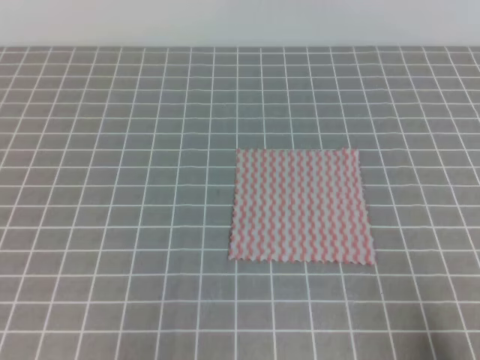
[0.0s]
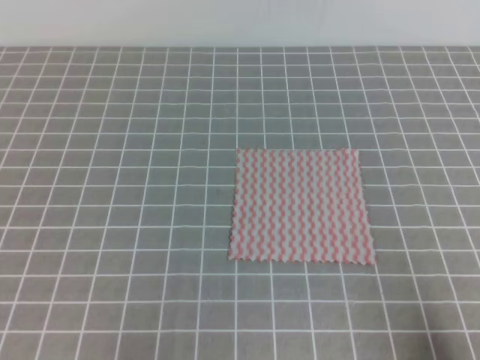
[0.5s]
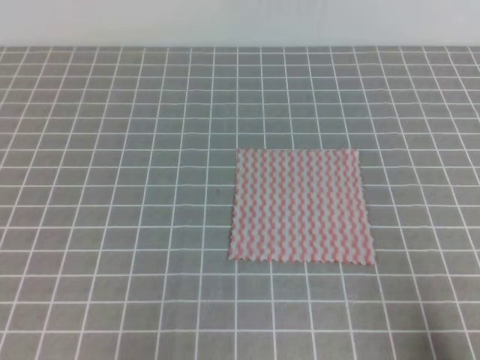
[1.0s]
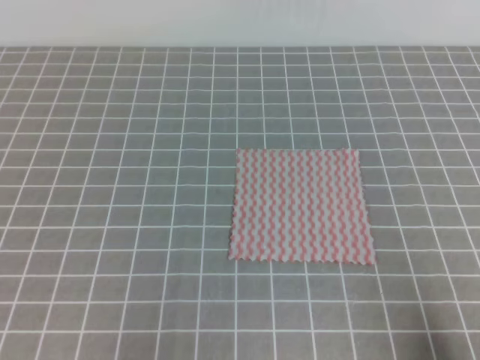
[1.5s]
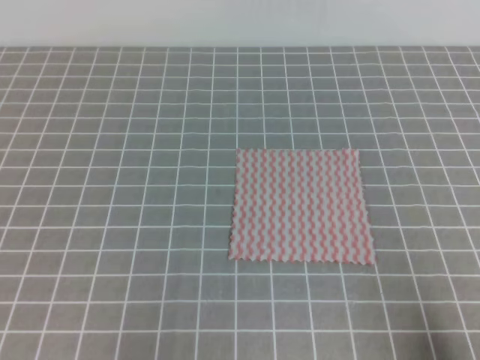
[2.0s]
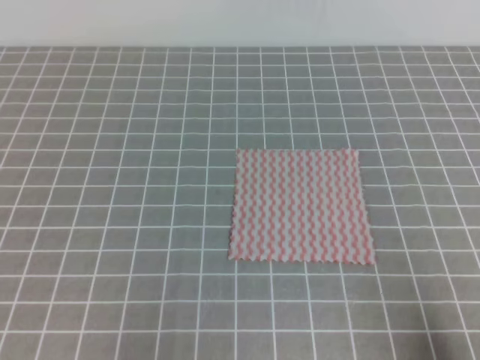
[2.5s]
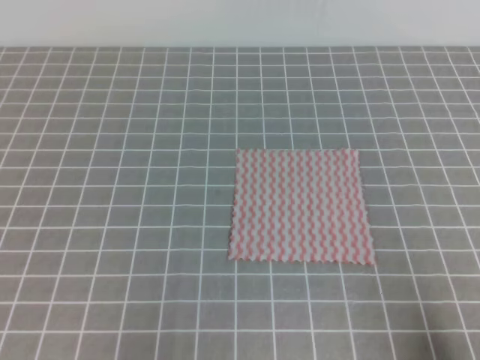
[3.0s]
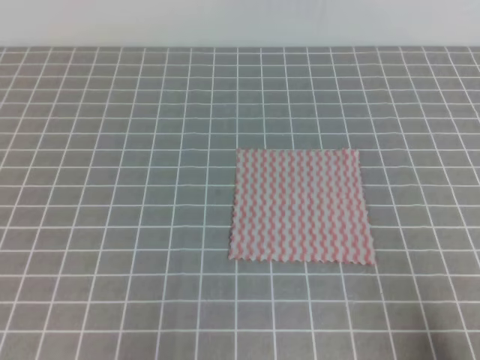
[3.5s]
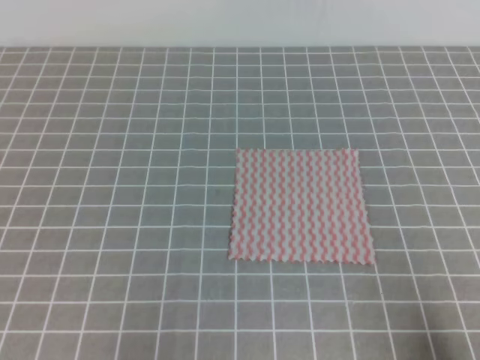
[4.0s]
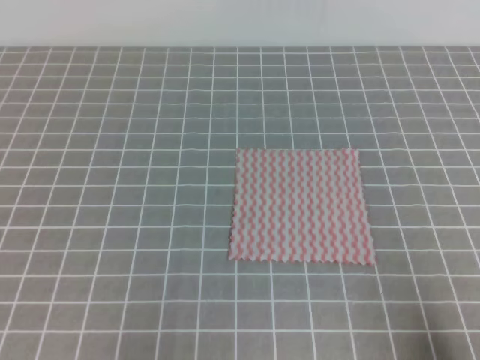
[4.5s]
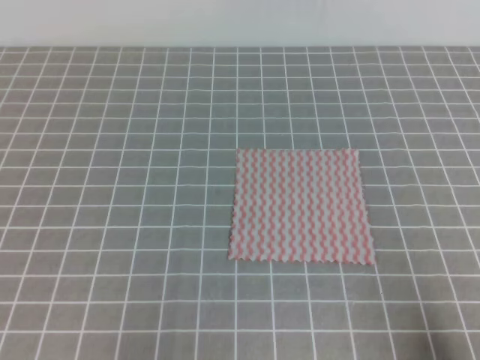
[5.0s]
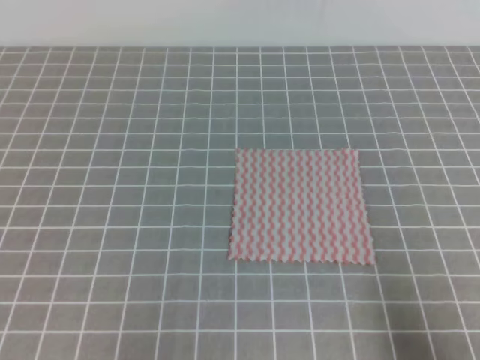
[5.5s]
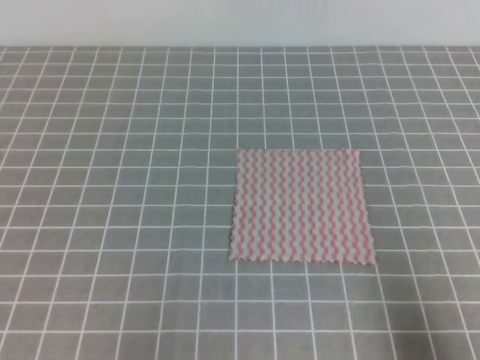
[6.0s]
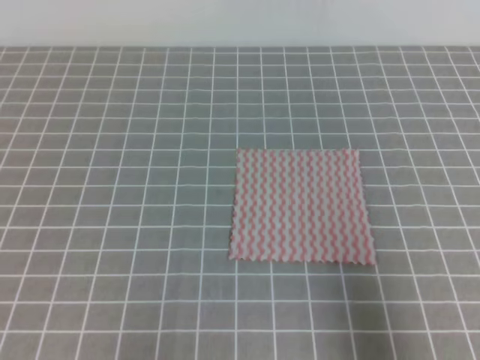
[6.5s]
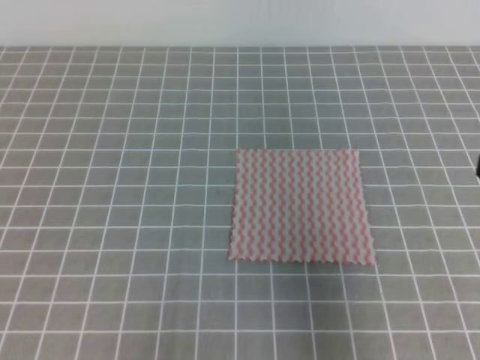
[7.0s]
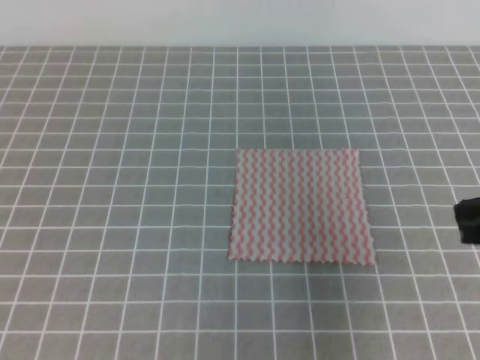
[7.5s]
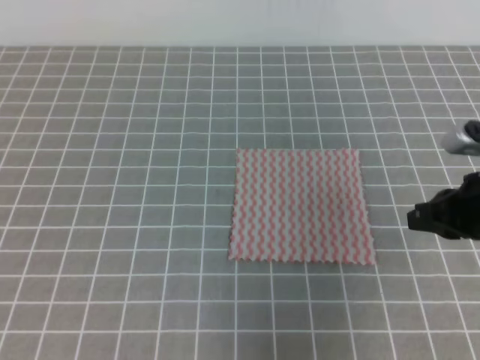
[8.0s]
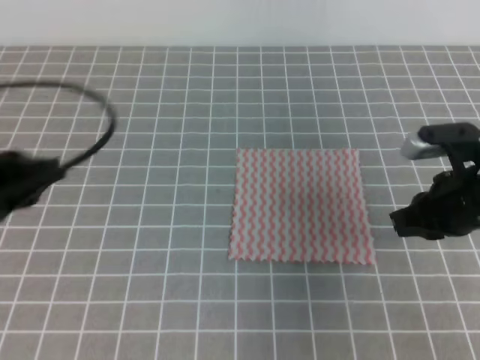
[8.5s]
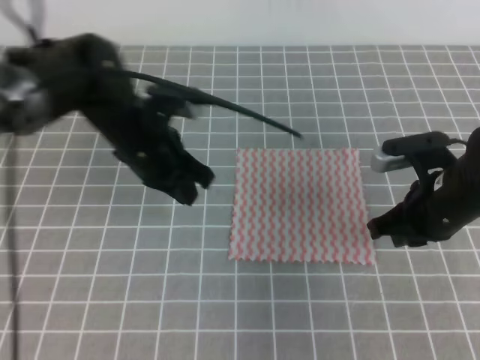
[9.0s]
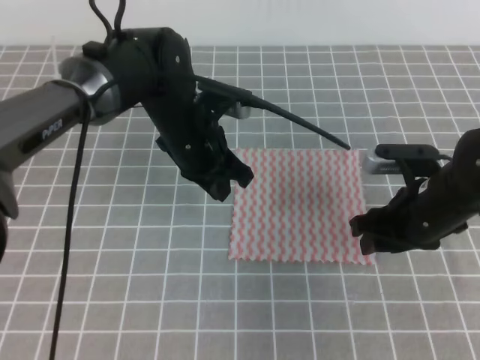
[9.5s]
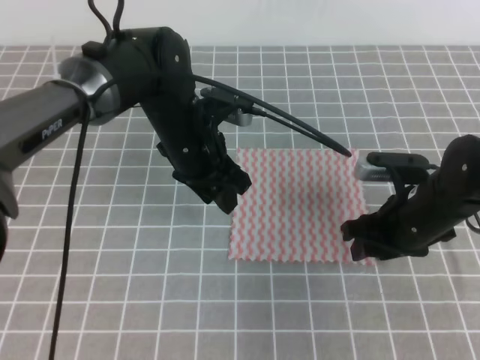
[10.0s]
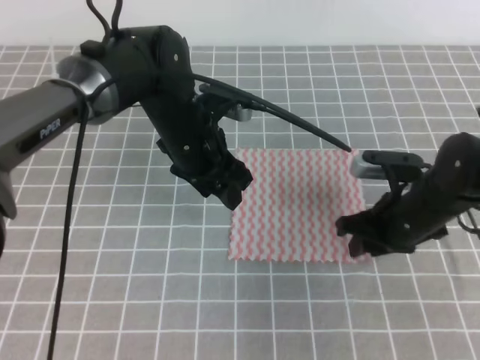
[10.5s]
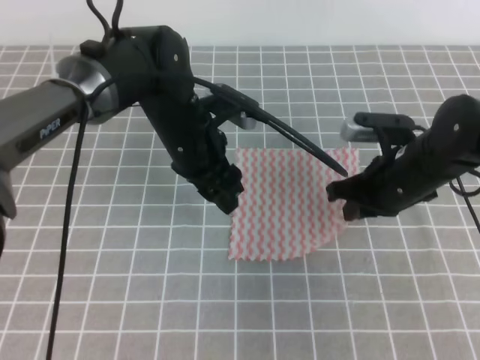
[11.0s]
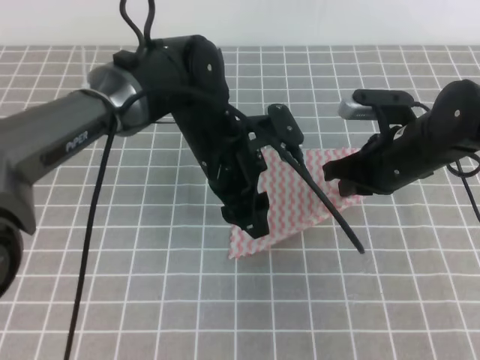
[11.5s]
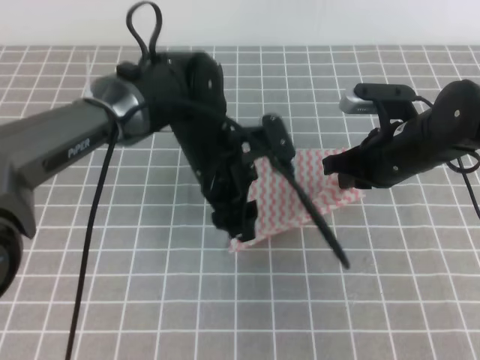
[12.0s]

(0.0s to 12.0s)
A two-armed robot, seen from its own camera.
0.0s - 4.0s: Both grippers stay put.
6.0s - 8.0s: The right gripper heads forward, covering about 20 cm. Meanwhile the left gripper travels upward by about 5 cm.
8.0s - 10.0s: The right gripper heads to the left and downward, covering roughly 10 cm, and opens. The left gripper heads forward and to the right, covering about 35 cm, and opens up.
10.0s - 12.0s: The right gripper ends up about 5 cm from where it was, and closes.

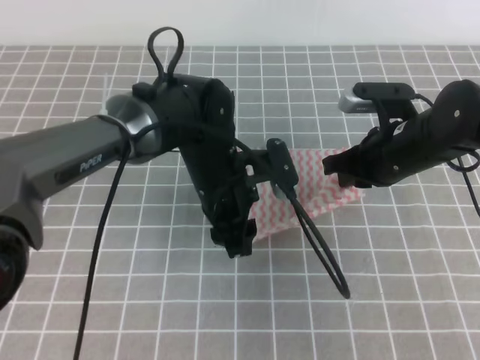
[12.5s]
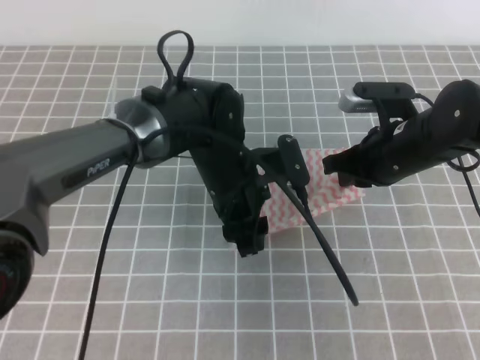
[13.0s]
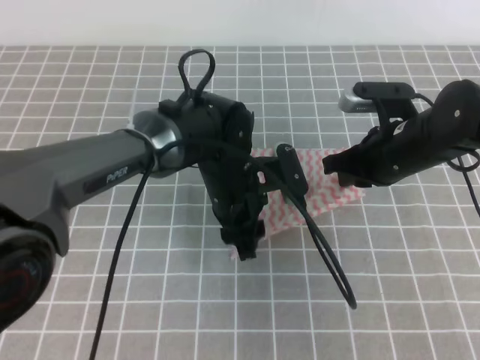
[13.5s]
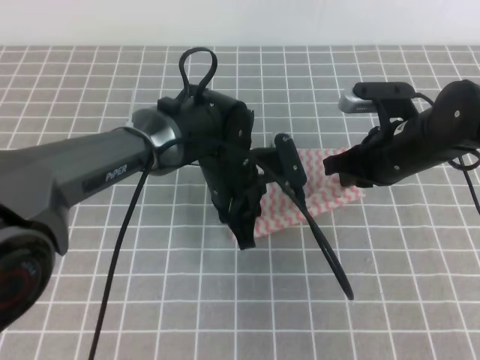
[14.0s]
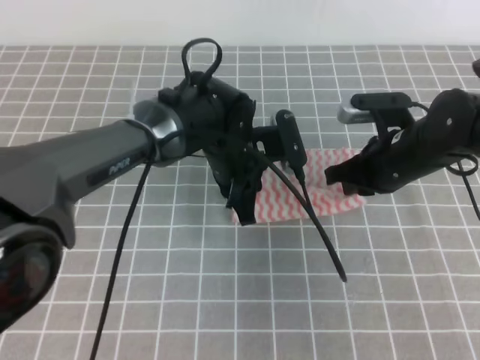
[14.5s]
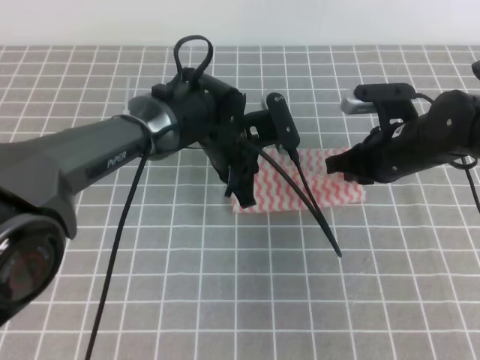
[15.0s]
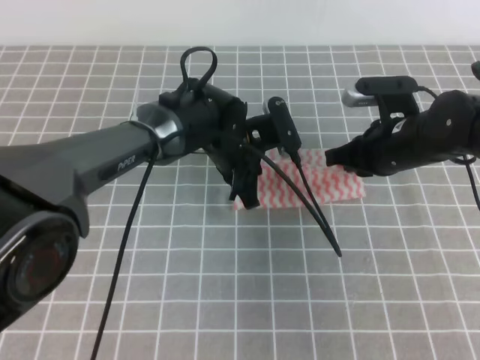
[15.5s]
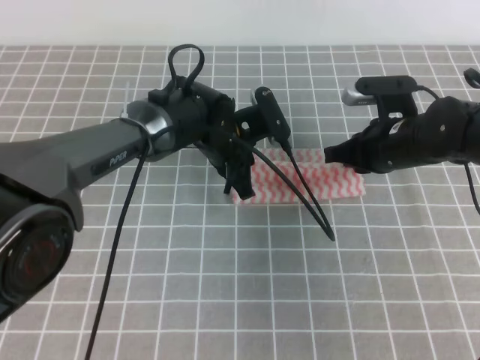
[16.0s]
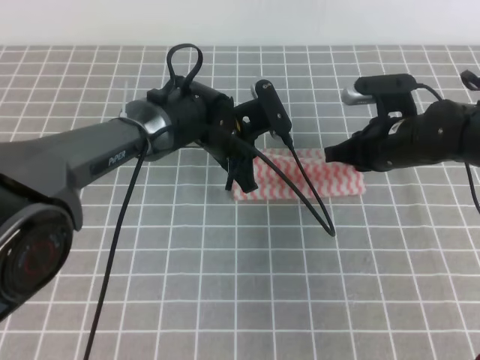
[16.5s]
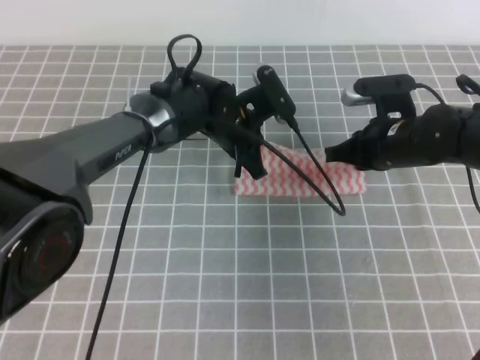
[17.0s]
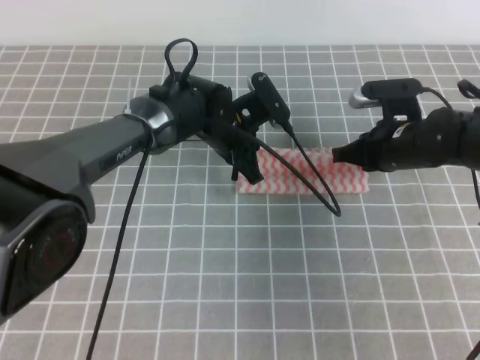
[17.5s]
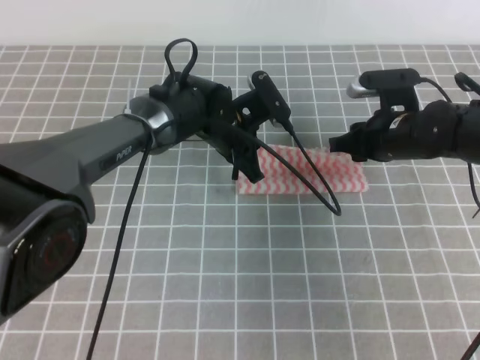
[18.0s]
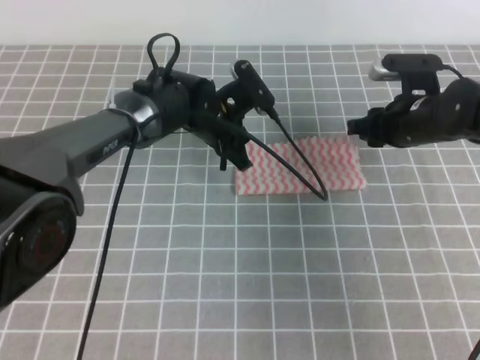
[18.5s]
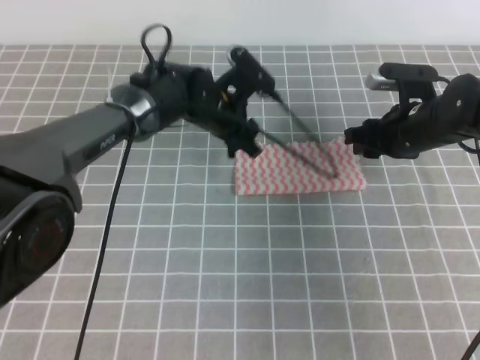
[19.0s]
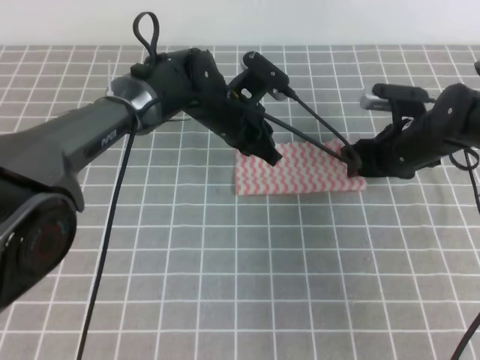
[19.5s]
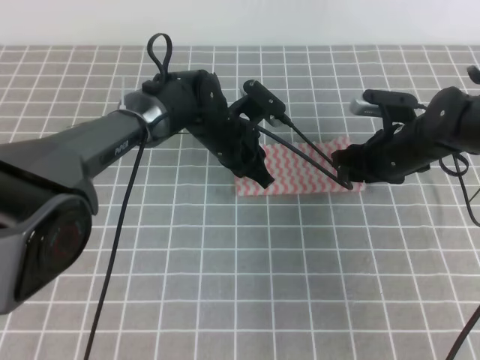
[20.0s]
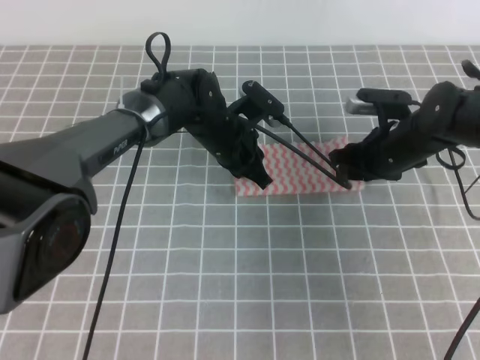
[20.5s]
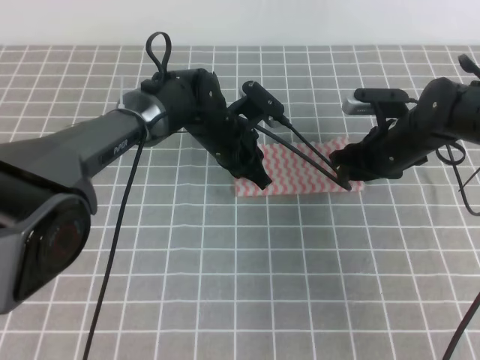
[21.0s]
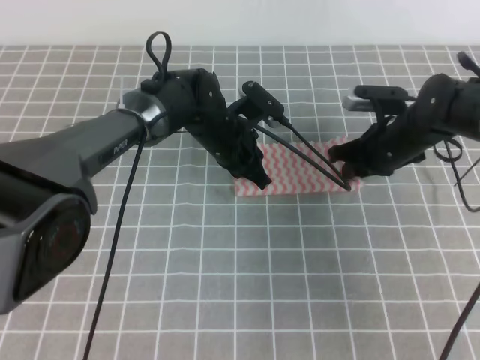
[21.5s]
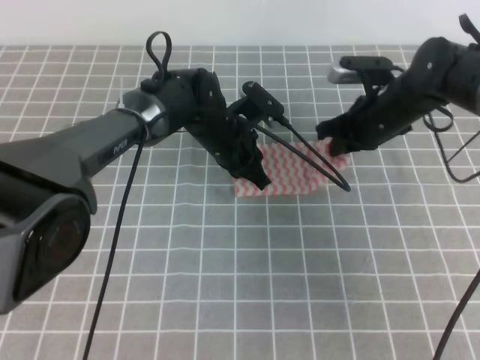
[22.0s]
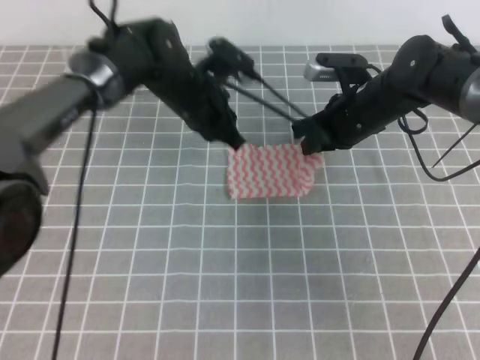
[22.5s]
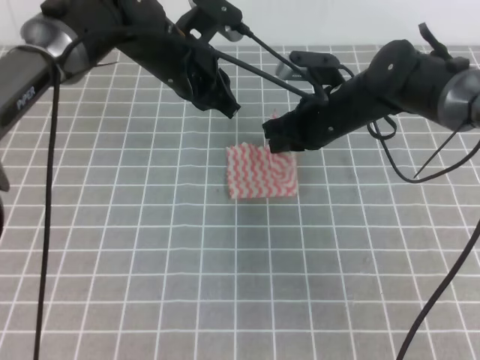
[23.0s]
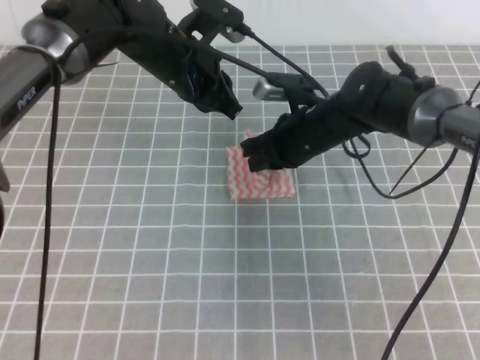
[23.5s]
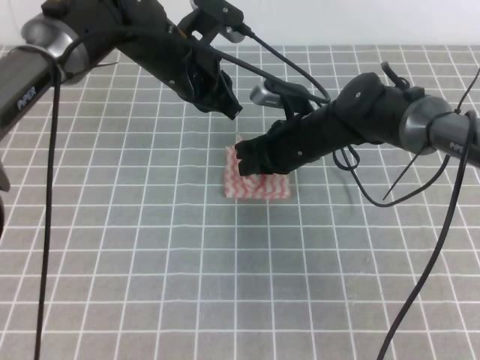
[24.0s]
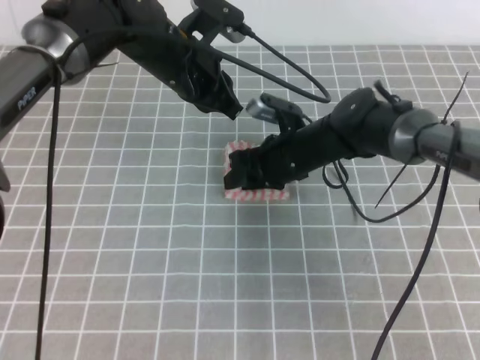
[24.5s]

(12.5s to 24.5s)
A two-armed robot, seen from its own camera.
12.5s - 14.5s: The left gripper closes its fingers.
14.5s - 16.5s: The left gripper shifts by approximately 5 cm.
16.5s - 18.5s: The left gripper opens; the right gripper opens its fingers.
18.5s - 20.5s: The left gripper closes.
20.5s - 22.5s: The right gripper moves to the left, about 5 cm, and closes up. Meanwhile the left gripper heads upward, covering approximately 5 cm.
22.5s - 24.5s: The left gripper travels upward by about 5 cm. Meanwhile the right gripper goes some 10 cm to the left, and opens its fingers.

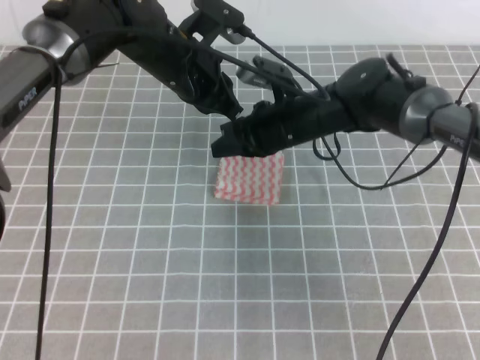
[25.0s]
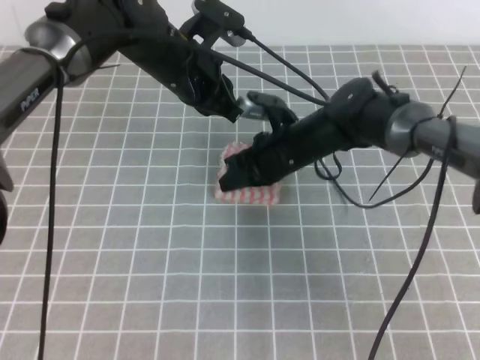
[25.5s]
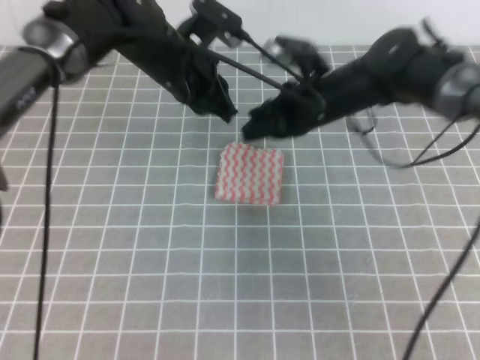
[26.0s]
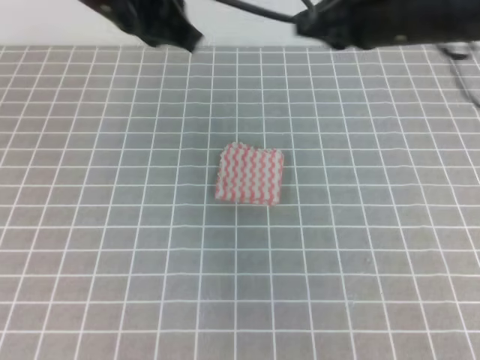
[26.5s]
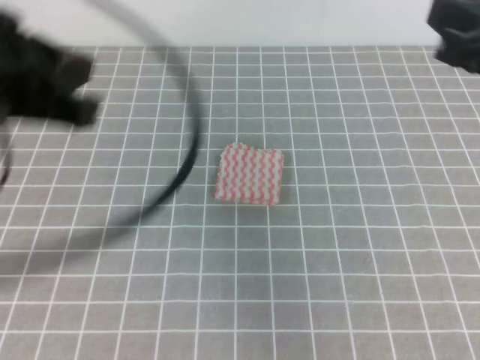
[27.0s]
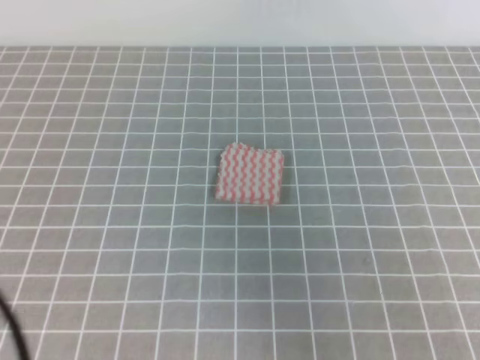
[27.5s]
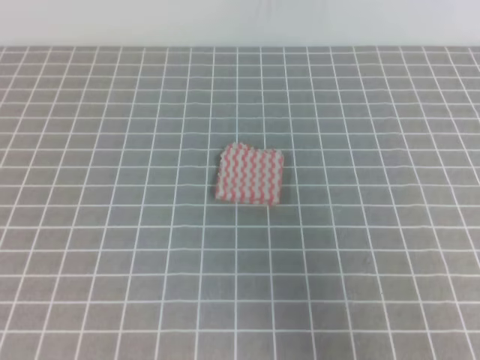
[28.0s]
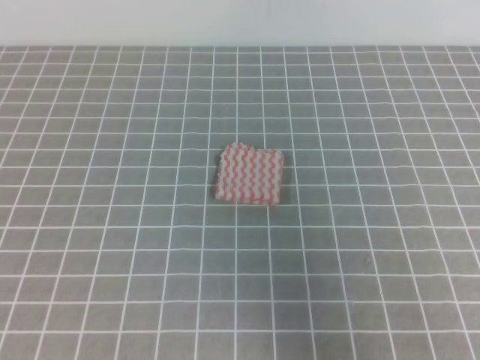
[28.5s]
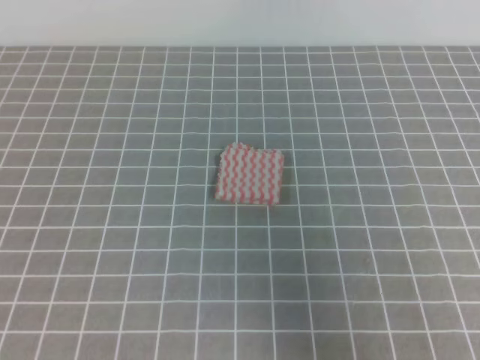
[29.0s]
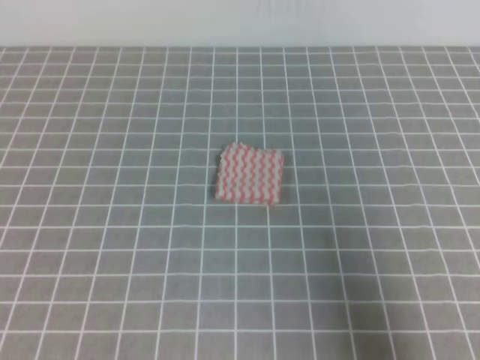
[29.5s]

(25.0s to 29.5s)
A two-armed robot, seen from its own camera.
25.0s - 27.0s: The left gripper goes roughly 25 cm backward, upward and to the left, while the right gripper shifts some 30 cm upward, backward and to the right.
27.0s - 29.5s: The left gripper moves backward, downward and to the left, roughly 20 cm. The right gripper heads backward, downward and to the right, covering roughly 20 cm.
